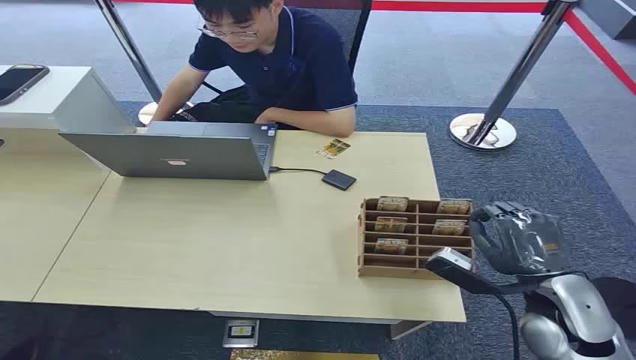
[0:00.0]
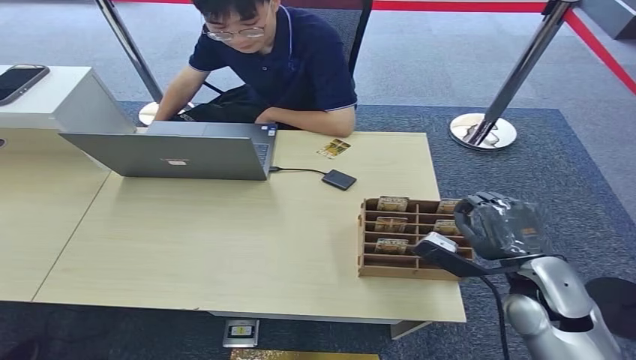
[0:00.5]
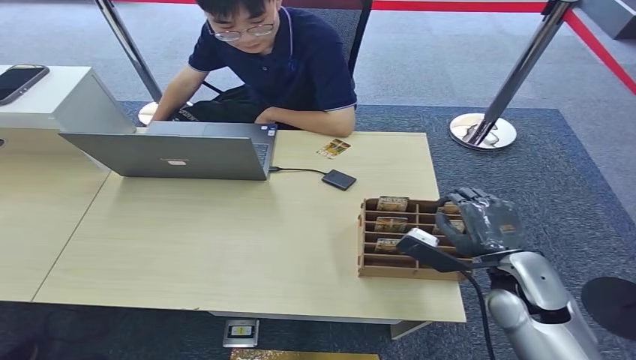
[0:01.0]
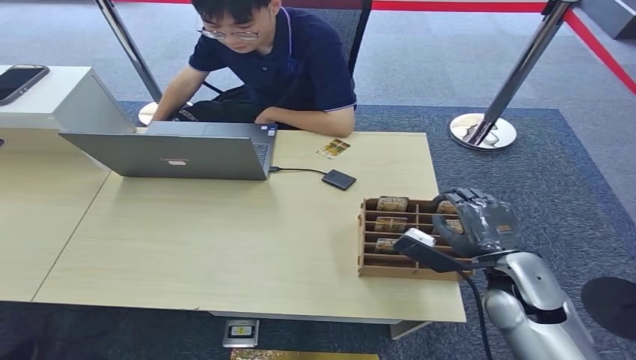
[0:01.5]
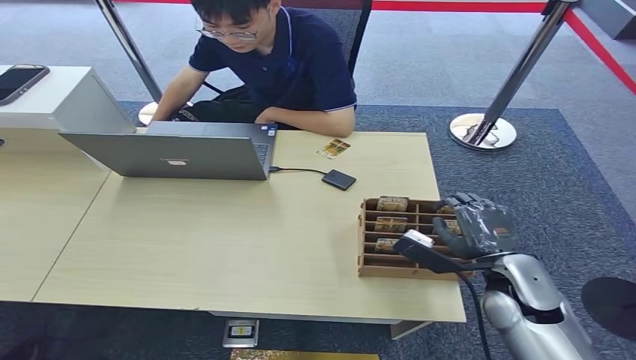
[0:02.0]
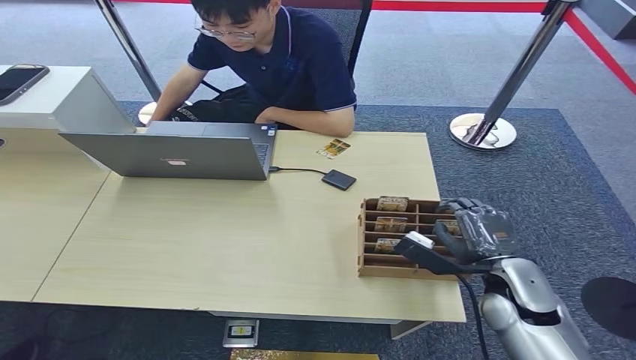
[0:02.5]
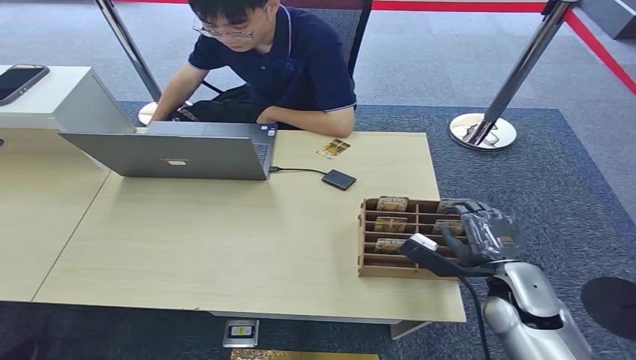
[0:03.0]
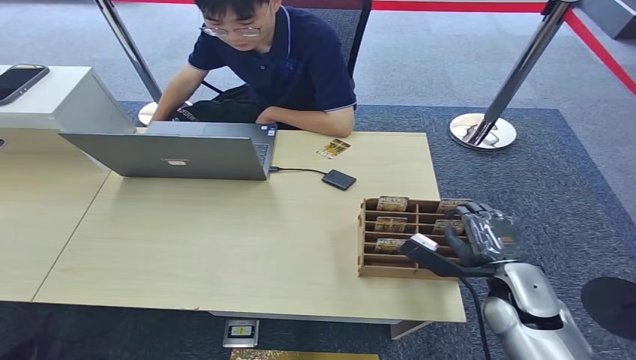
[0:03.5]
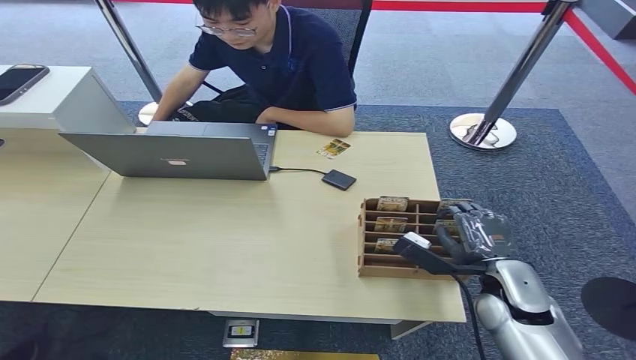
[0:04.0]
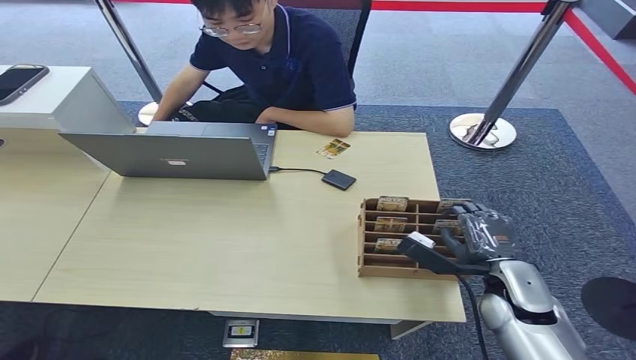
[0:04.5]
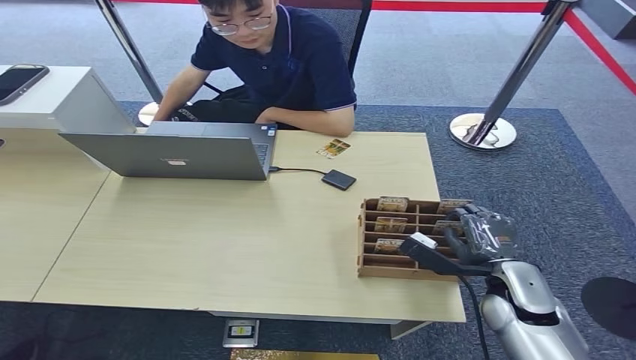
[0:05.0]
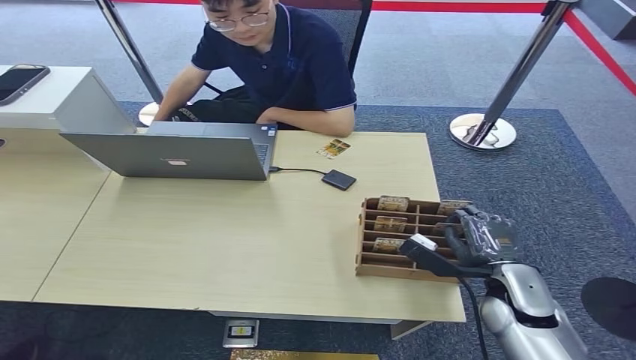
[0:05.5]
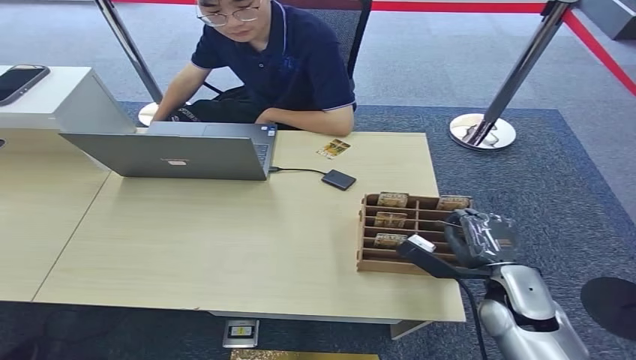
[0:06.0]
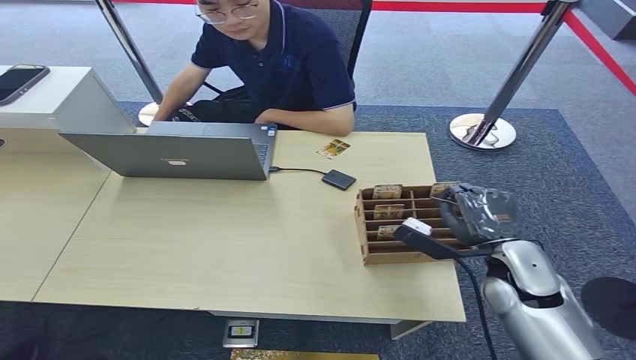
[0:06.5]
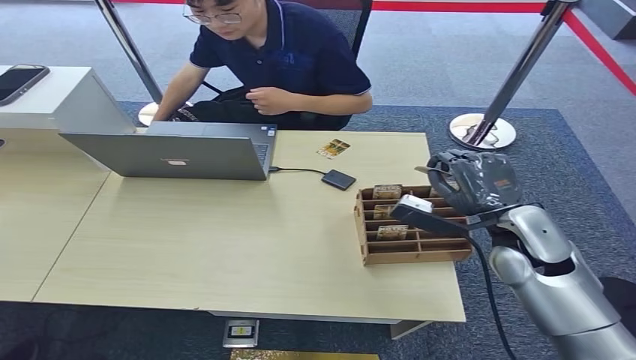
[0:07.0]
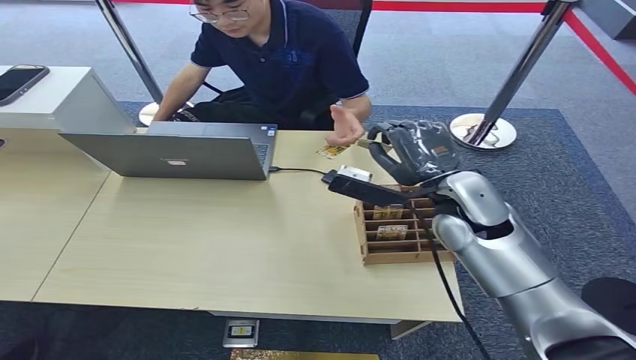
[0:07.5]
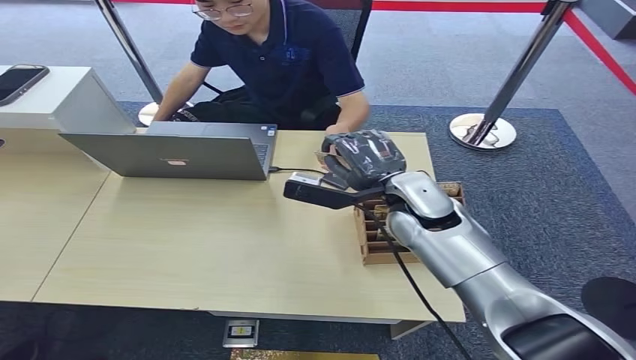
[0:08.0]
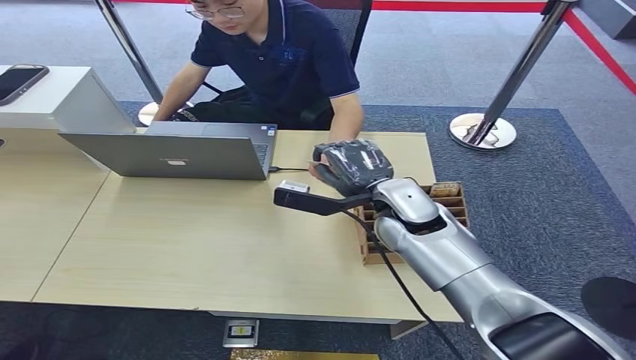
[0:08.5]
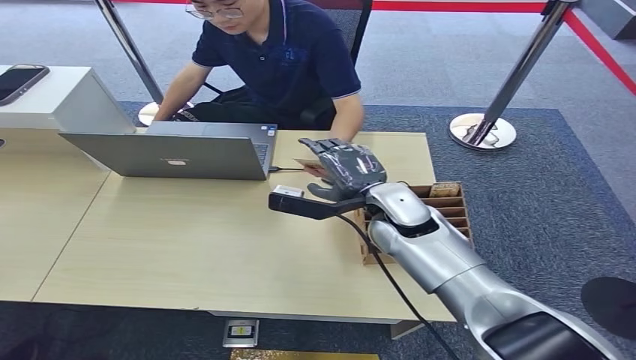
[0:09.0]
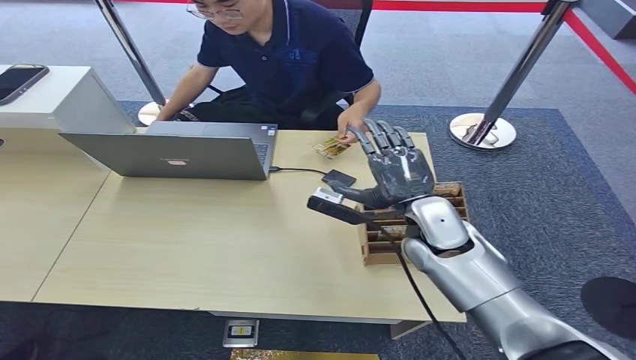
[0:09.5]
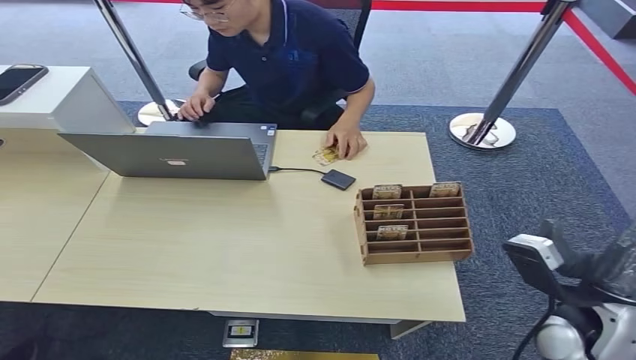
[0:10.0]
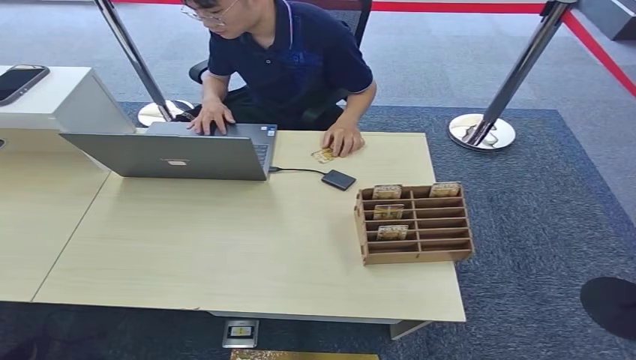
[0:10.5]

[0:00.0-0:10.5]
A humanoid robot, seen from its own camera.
Step, 0:00.0 to 0:06.5: Pick up the room card from the card holder.
Step, 0:07.0 to 0:10.5: Hand the room card to the target.
0:02.0 to 0:06.5: There are only small adjustments of the hands.
0:06.5 to 0:08.5: The right hand goes approximately 20 cm to the left, forward and upward.
0:08.5 to 0:10.5: The right hand moves to the right, backward and downward, approximately 50 cm.
